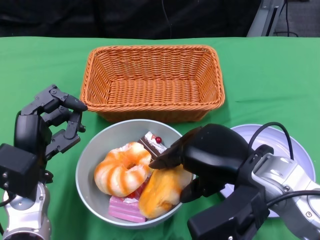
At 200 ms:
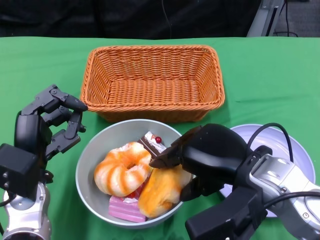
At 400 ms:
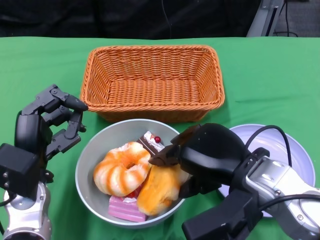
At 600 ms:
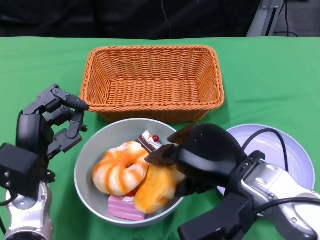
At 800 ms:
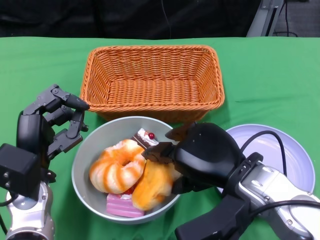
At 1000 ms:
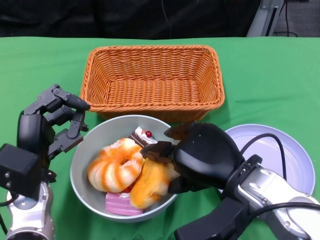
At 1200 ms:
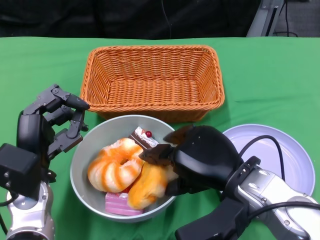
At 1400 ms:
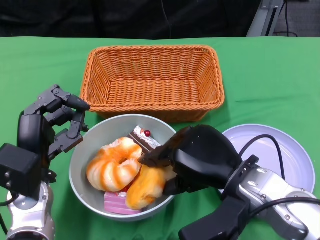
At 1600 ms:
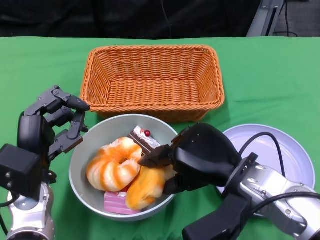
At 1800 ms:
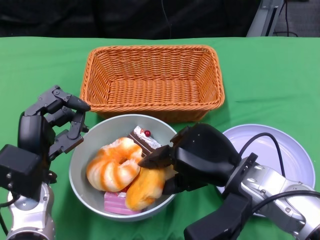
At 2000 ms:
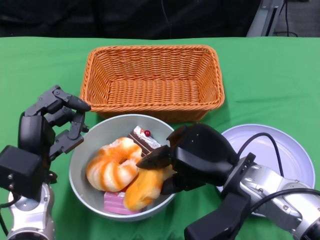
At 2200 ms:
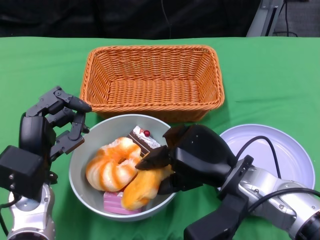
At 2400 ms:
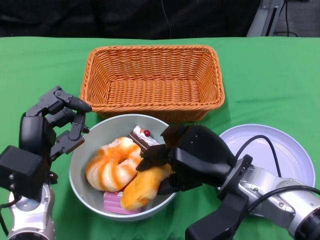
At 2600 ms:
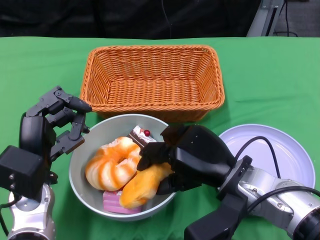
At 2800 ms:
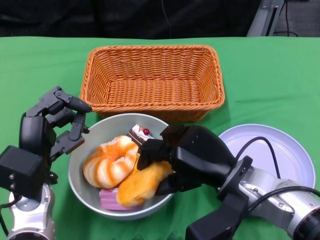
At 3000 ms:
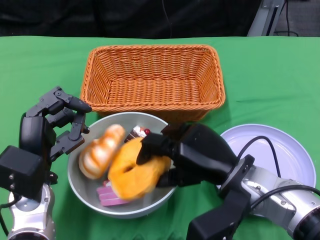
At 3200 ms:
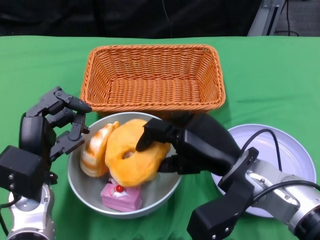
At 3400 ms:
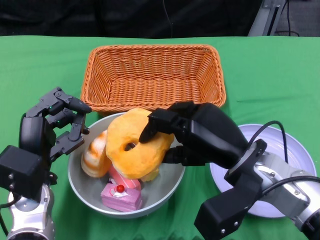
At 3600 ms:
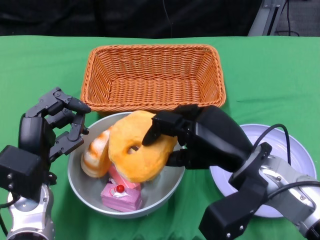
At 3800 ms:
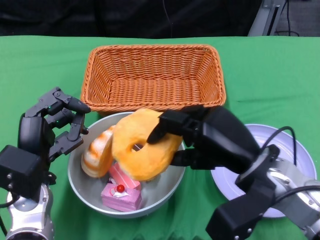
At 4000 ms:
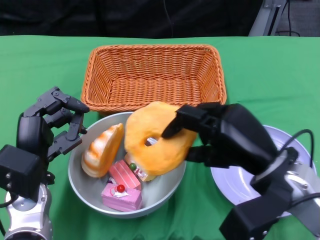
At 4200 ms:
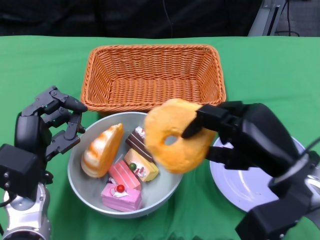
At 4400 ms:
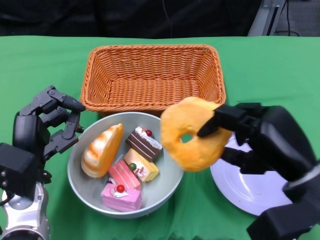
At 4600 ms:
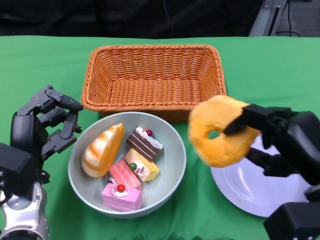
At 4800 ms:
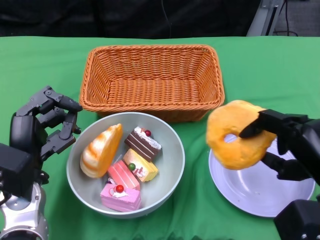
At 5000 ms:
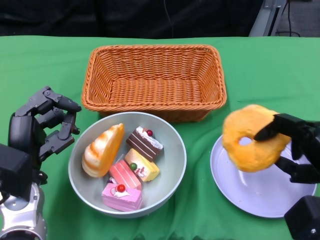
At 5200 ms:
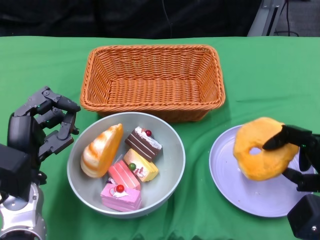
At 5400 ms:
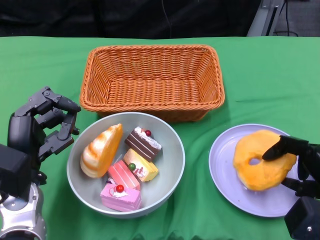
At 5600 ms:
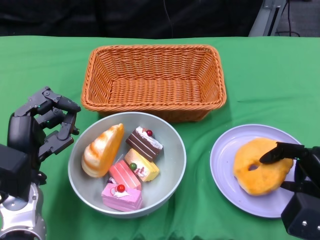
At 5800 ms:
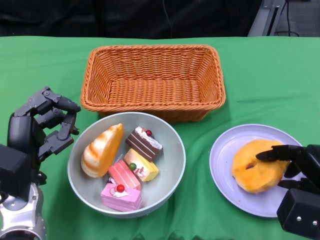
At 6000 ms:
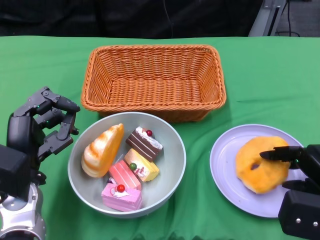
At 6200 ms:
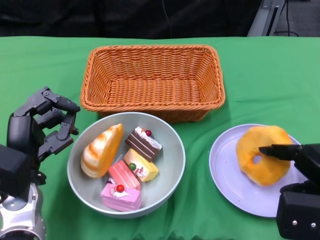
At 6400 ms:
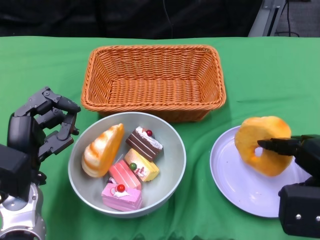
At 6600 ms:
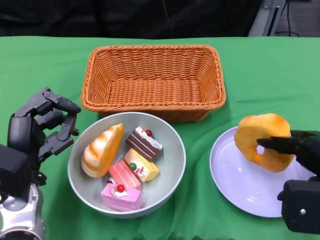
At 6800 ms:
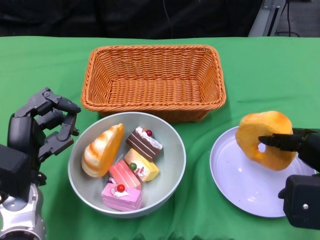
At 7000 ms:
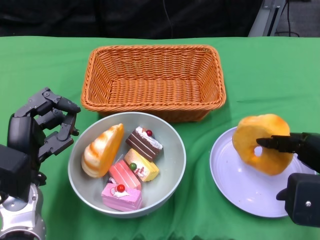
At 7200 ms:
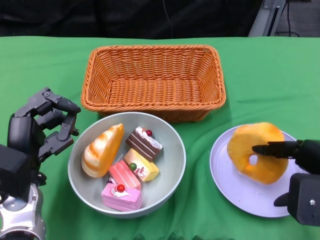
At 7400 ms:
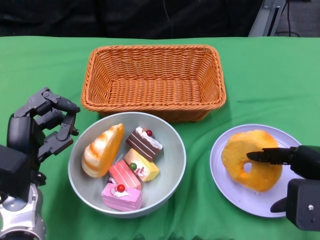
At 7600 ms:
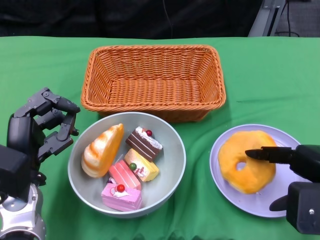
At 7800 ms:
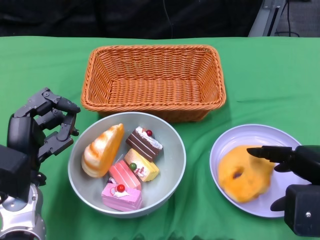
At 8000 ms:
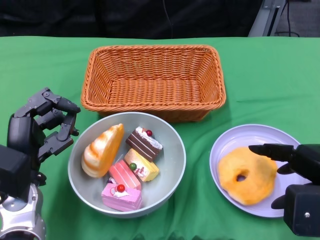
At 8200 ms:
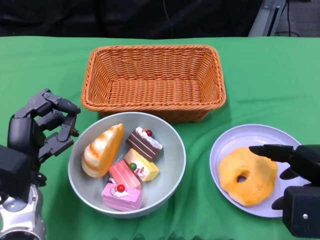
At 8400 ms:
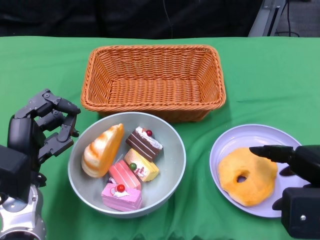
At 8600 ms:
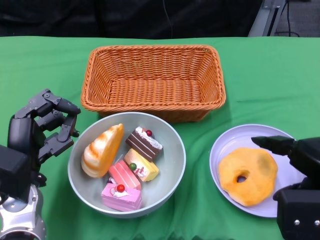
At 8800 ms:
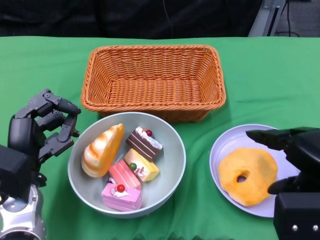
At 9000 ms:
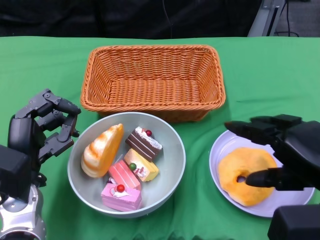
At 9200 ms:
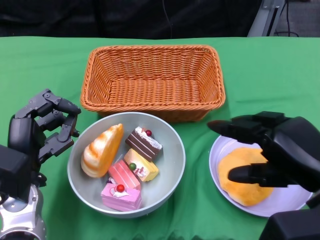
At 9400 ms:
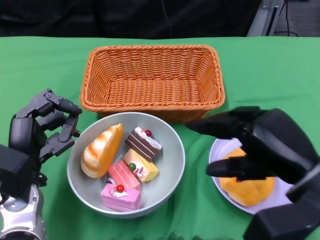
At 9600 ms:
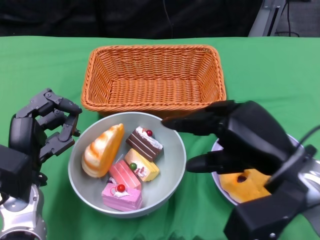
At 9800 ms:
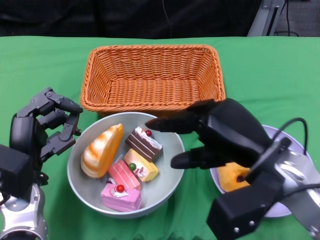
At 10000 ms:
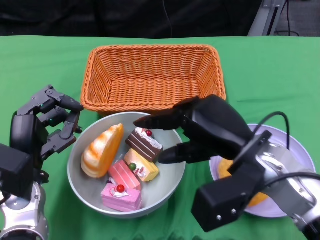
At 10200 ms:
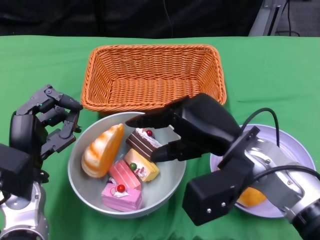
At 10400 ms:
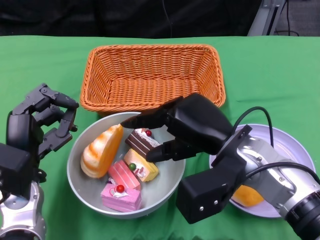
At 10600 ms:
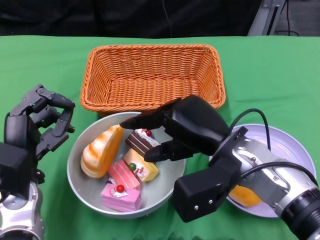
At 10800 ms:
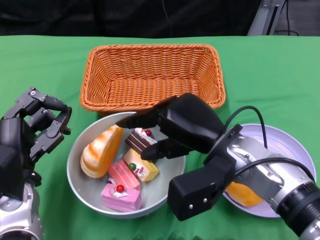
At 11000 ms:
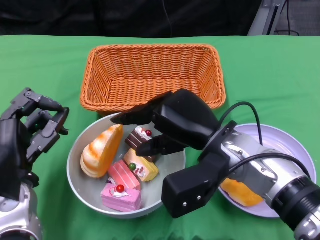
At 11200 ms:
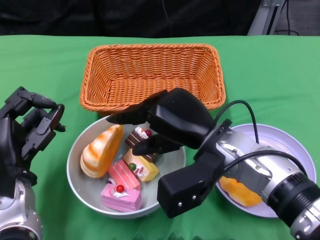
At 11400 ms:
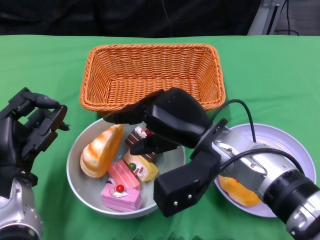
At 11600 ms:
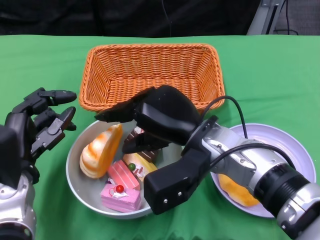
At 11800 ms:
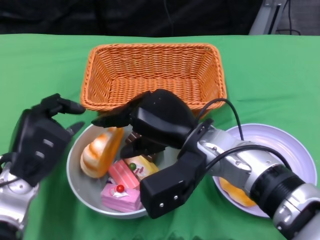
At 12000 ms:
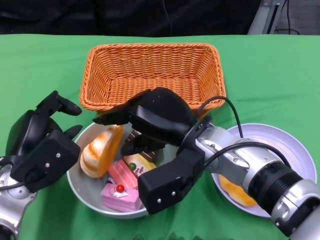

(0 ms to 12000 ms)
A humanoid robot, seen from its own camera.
1600 ms - 3000 ms: The hands stay close to where they were, moving slightly.
3000 ms - 4400 ms: The right hand goes about 10 cm to the right.
4400 ms - 6000 ms: The right hand goes about 5 cm to the right.
6000 ms - 7600 ms: The right hand heads upward, covering roughly 5 cm.
9000 ms - 10400 ms: The right hand goes some 15 cm to the left and forward.
10400 ms - 12000 ms: The right hand is displaced to the left by about 5 cm.

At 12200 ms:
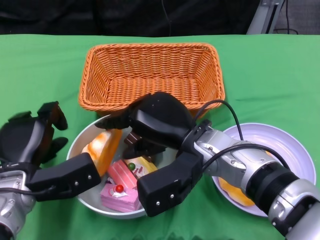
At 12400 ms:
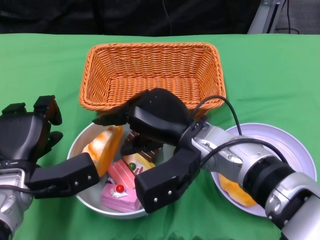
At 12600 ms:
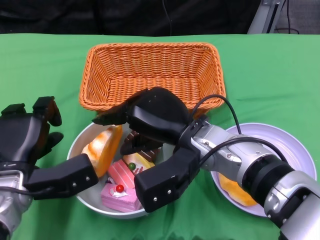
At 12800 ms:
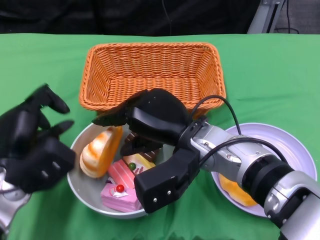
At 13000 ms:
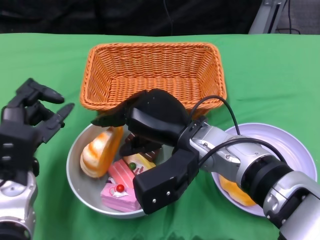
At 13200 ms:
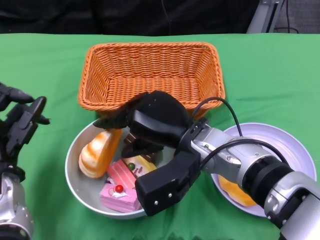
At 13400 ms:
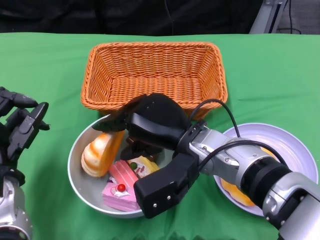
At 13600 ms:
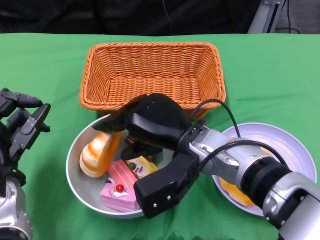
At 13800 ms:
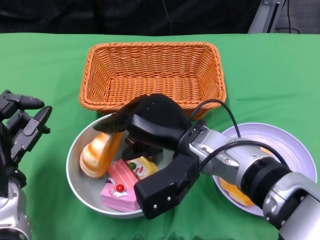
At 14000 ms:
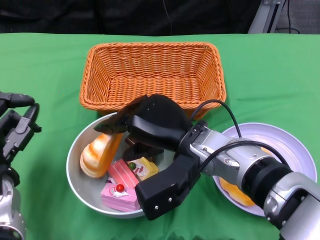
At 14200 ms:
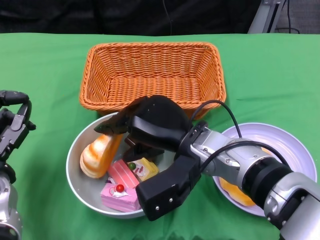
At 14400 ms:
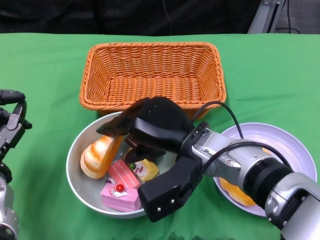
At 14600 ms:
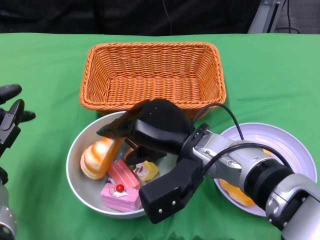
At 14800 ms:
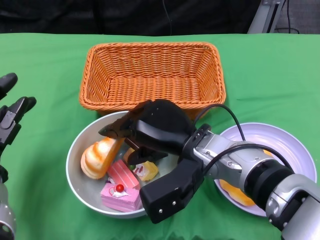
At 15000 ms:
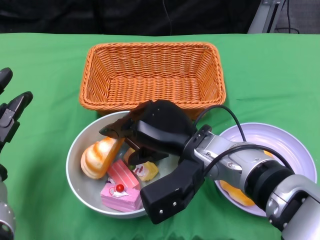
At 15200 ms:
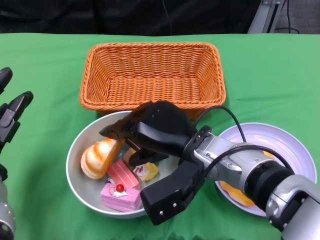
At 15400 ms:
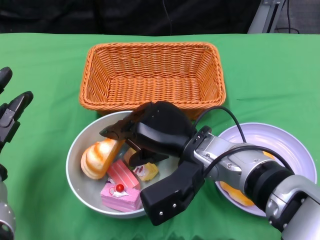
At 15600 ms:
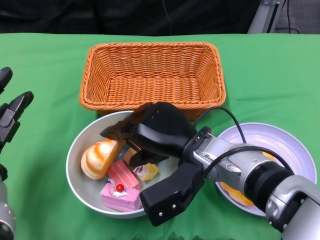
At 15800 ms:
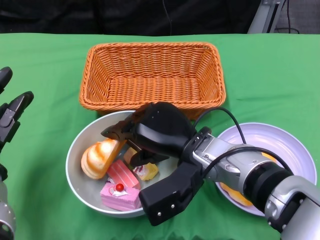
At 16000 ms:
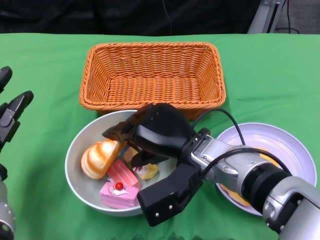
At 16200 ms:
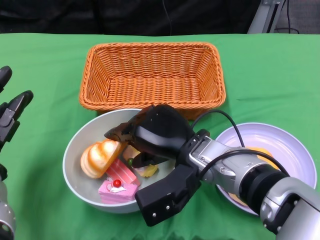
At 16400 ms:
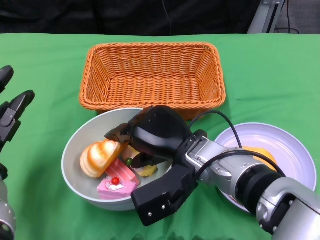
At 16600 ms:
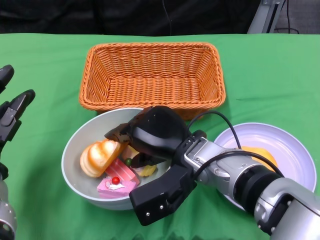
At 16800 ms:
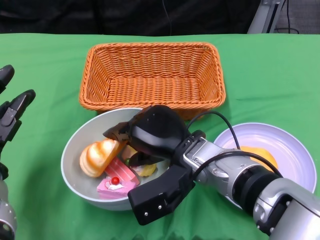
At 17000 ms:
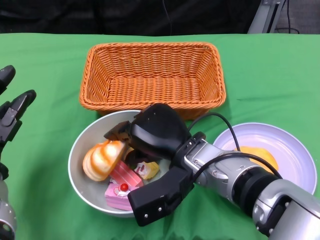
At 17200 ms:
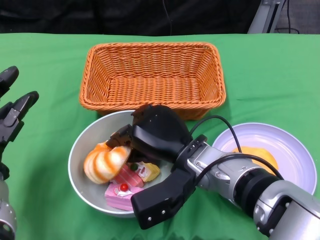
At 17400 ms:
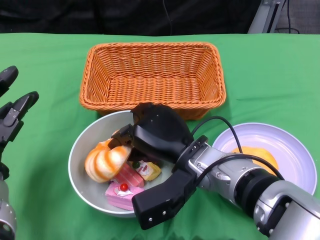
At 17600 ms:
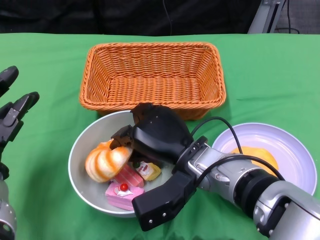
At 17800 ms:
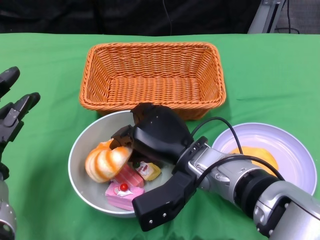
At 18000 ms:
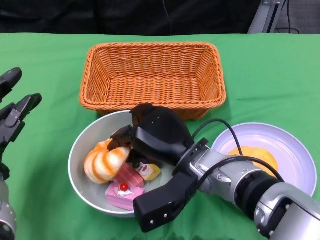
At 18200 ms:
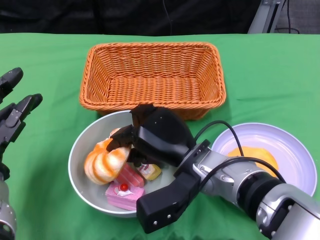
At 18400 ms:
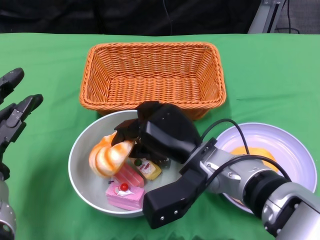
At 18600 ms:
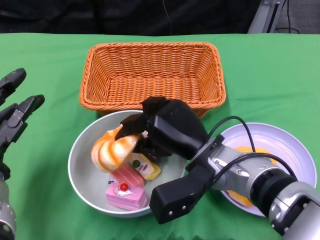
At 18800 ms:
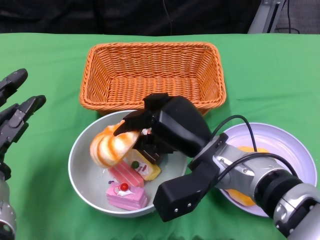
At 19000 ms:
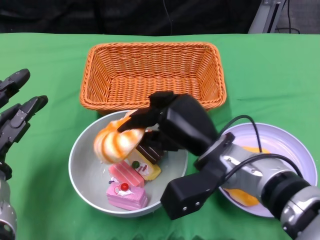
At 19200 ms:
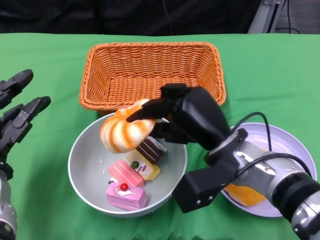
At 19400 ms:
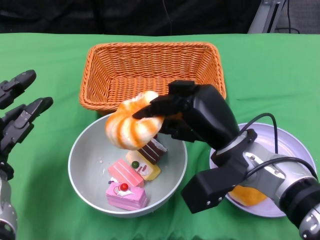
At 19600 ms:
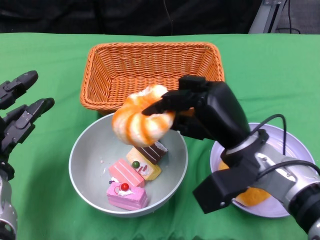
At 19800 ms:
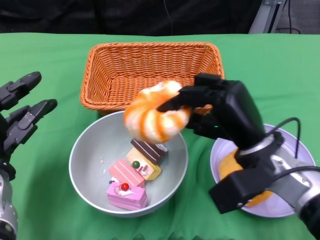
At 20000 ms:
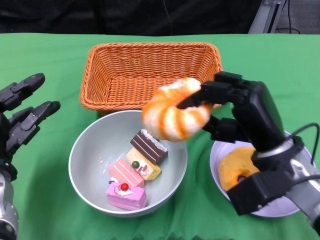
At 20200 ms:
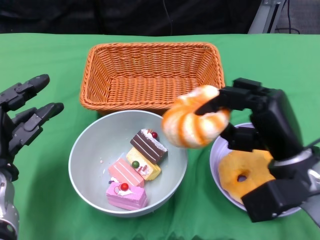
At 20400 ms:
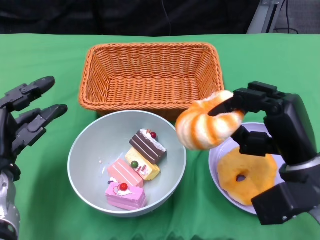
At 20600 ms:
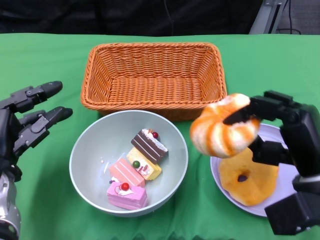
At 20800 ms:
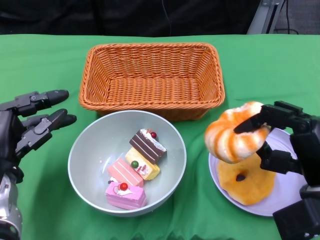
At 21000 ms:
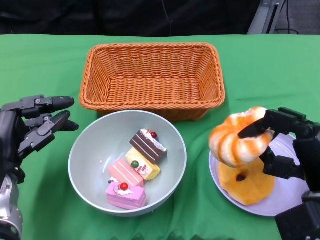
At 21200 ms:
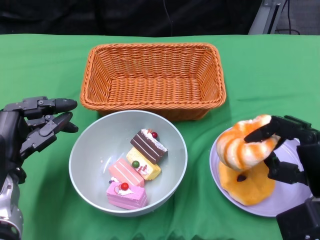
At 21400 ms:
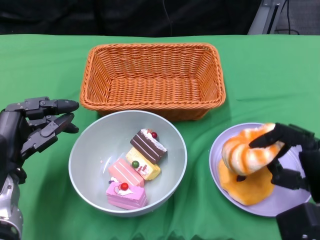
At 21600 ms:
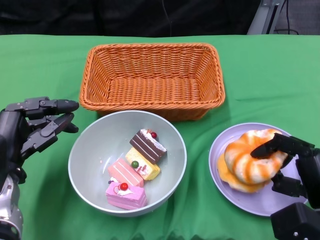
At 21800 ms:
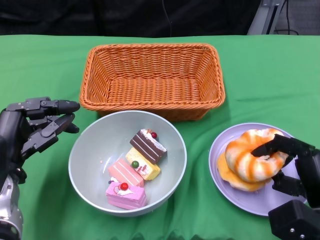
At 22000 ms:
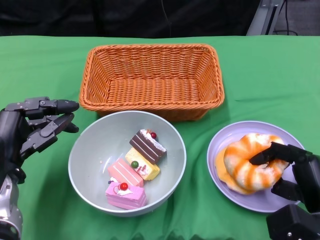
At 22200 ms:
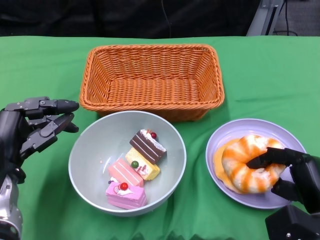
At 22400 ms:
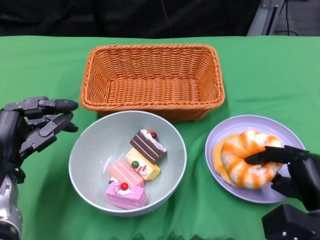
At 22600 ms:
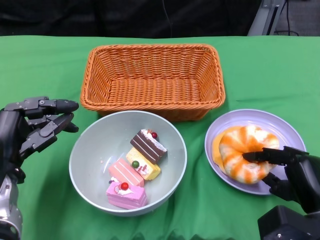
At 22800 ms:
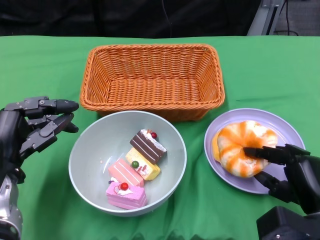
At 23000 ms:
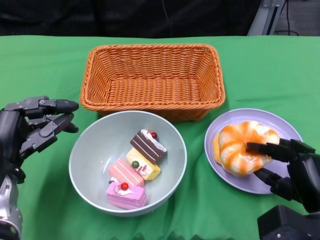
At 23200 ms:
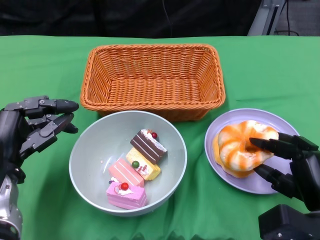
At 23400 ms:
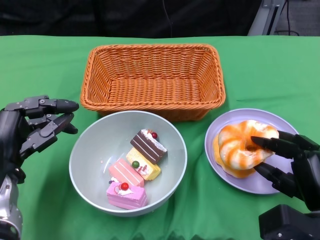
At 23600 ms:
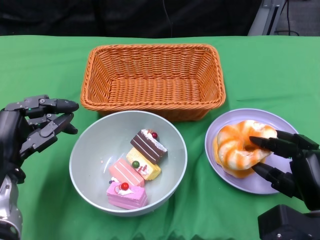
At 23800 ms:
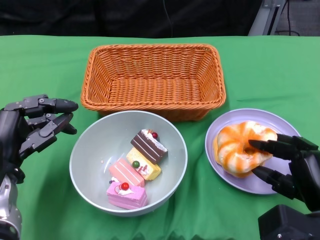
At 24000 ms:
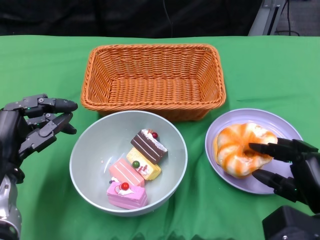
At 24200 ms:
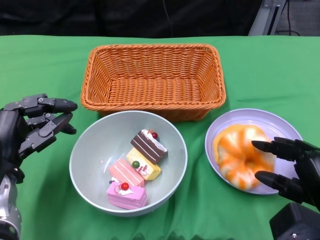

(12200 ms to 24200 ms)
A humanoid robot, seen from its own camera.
15200 ms - 18200 ms: The hands move only a little.
18200 ms - 19800 ms: The right hand heads to the right, covering about 10 cm.
19800 ms - 21200 ms: The right hand goes roughly 10 cm to the right and backward.
21200 ms - 22600 ms: The right hand is displaced downward by some 5 cm.
22600 ms - 24200 ms: The hands make only small movements.
